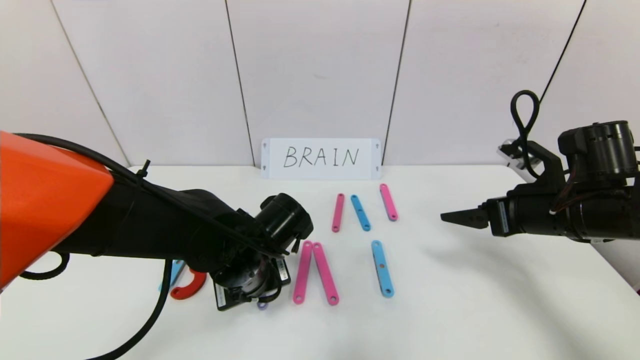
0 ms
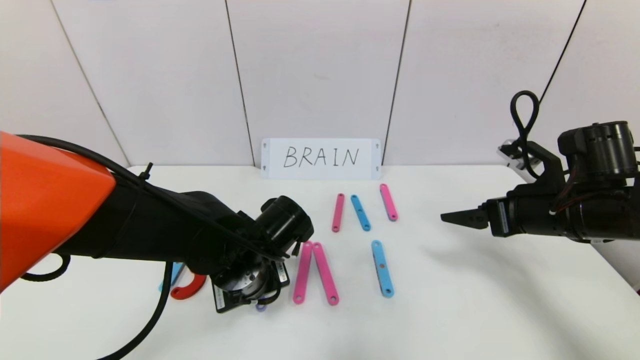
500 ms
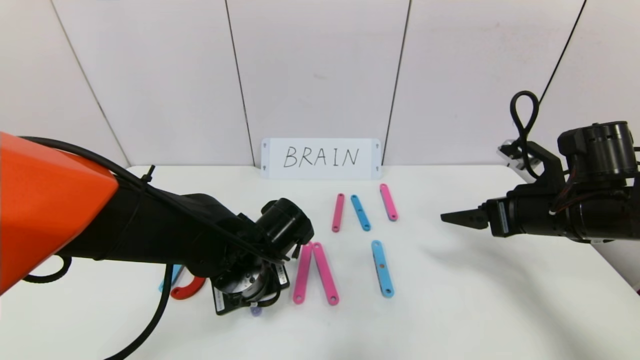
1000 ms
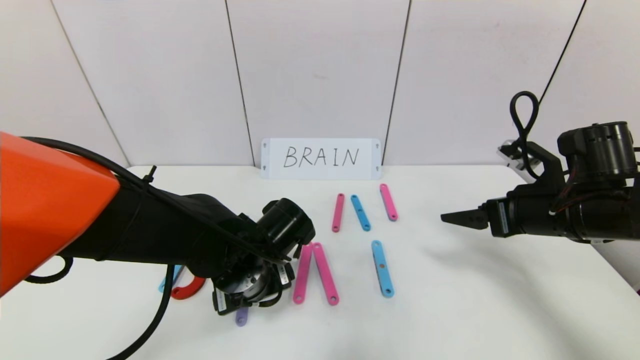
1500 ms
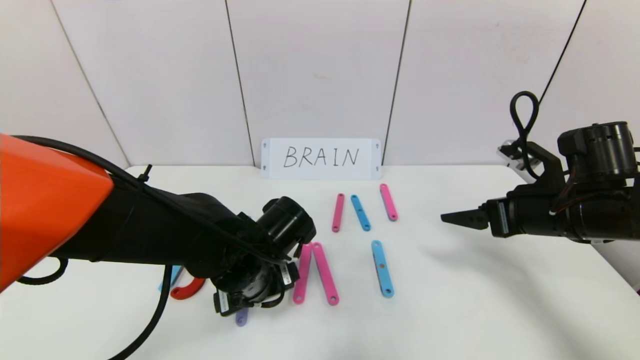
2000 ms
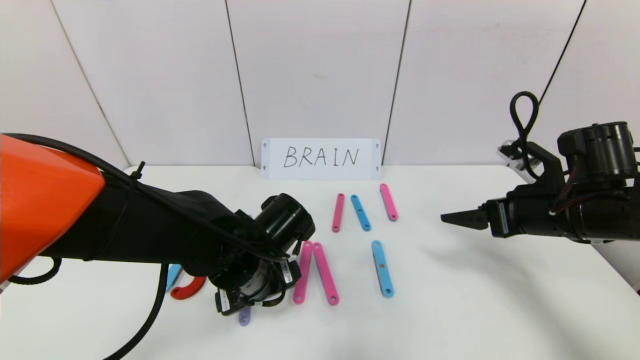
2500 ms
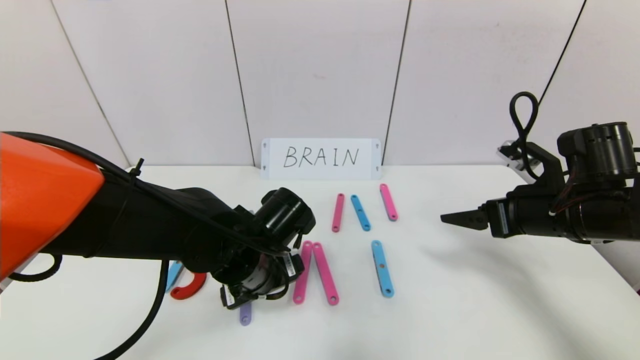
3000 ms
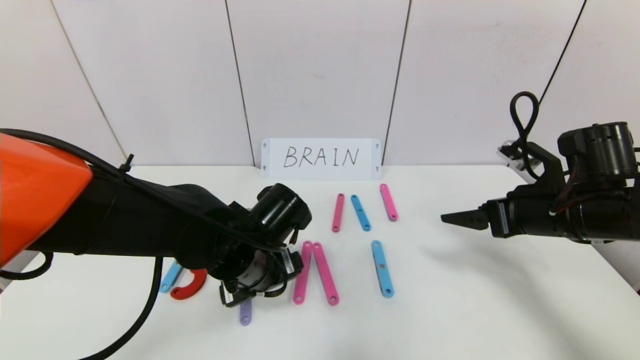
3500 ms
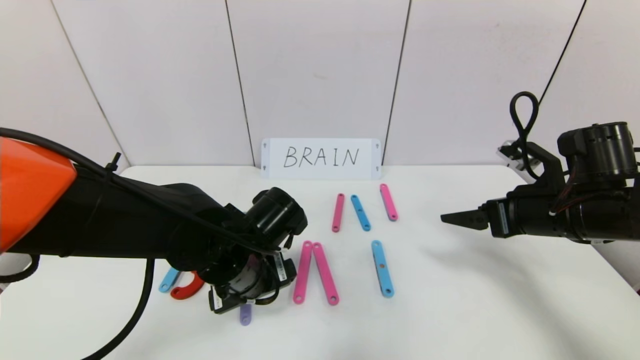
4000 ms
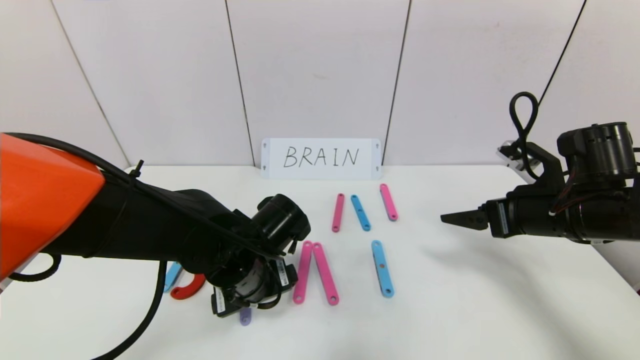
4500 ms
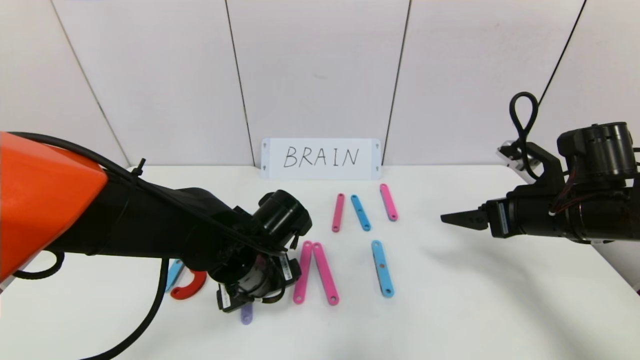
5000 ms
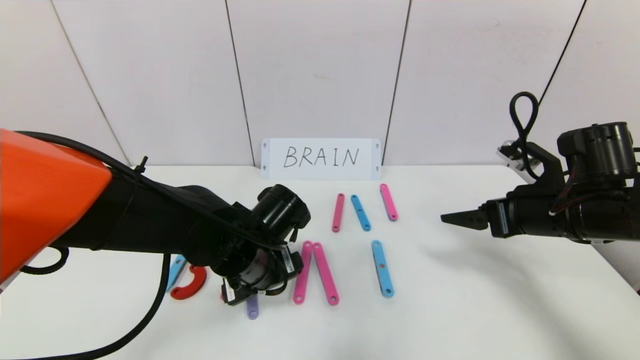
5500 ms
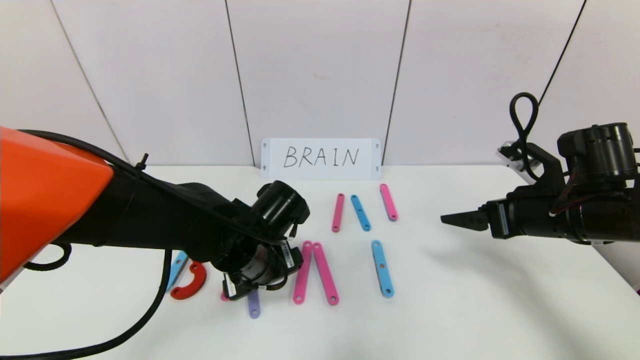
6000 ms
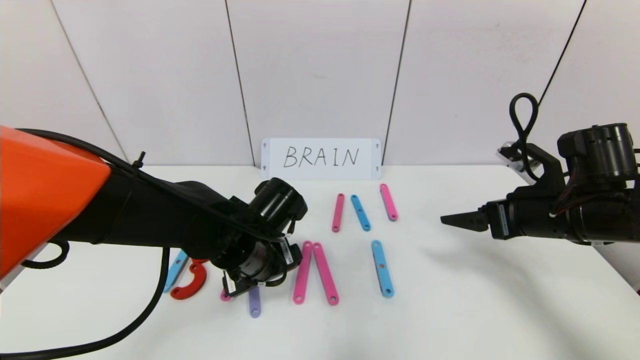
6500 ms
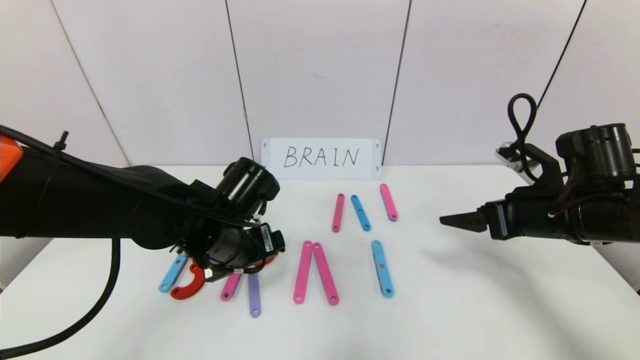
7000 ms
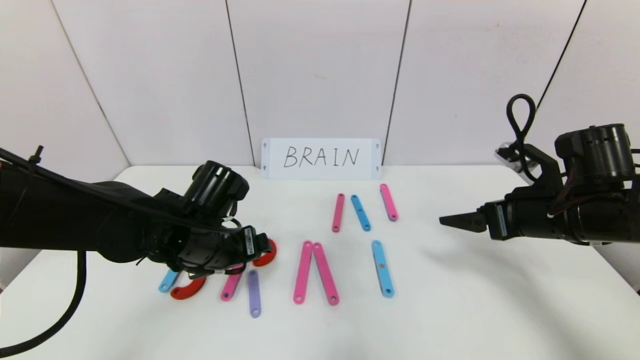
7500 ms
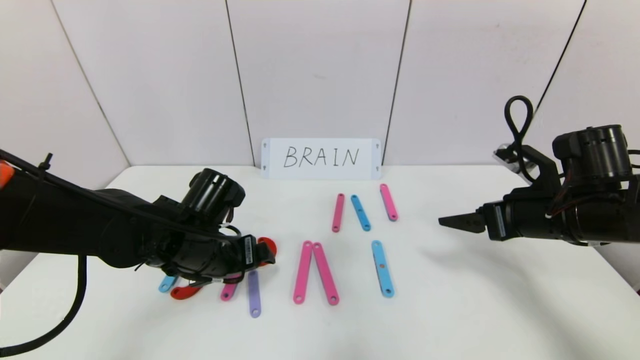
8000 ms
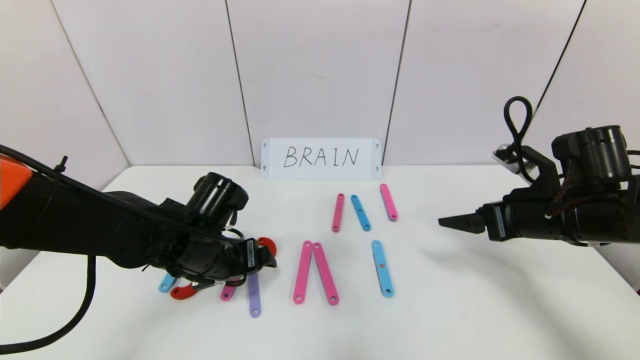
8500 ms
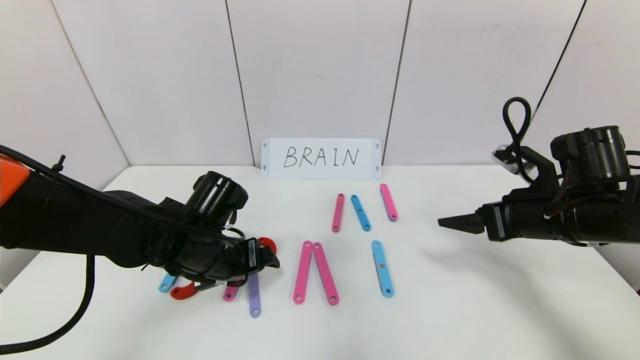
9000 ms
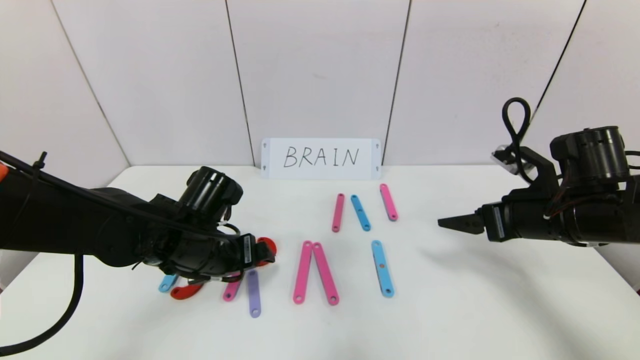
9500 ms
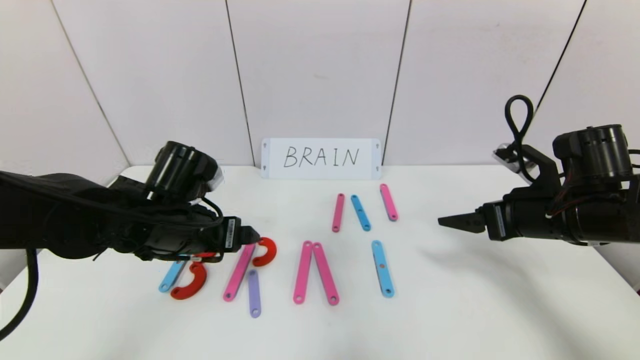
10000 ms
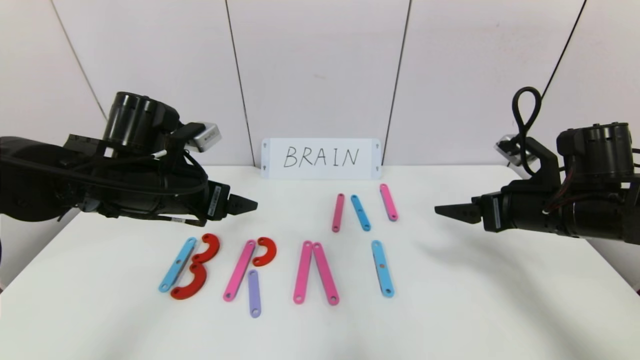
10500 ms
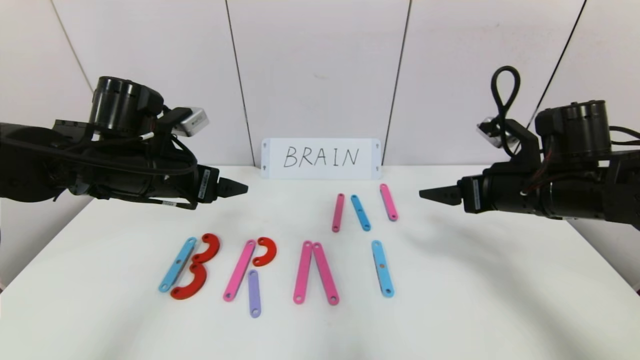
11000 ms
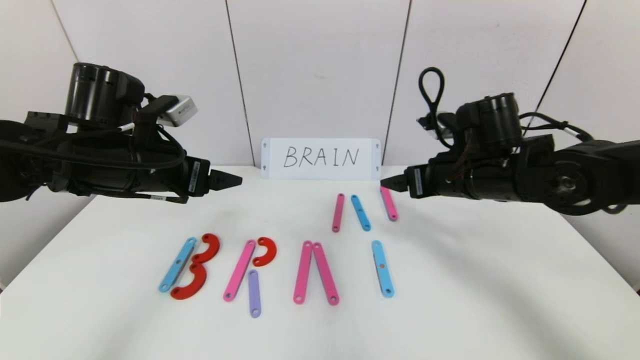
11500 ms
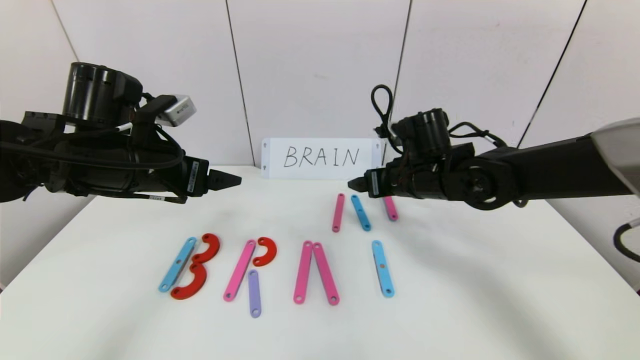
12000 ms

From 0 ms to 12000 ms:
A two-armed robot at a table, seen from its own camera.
Task of the whole recording: rearrange the word baai as brain.
Step, from 0 ms to 9500 ms: Place the character R between first character B and third character A.
From 0 ms to 2000 ms: The left gripper opens.
From 2000 ms to 6000 ms: The grippers stay close to where they were, moving slightly.
From 6000 ms to 8000 ms: The left gripper travels to the left by some 5 cm.
From 10000 ms to 12000 ms: The right gripper heads to the left and forward, covering approximately 20 cm. The left gripper shifts some 10 cm upward.

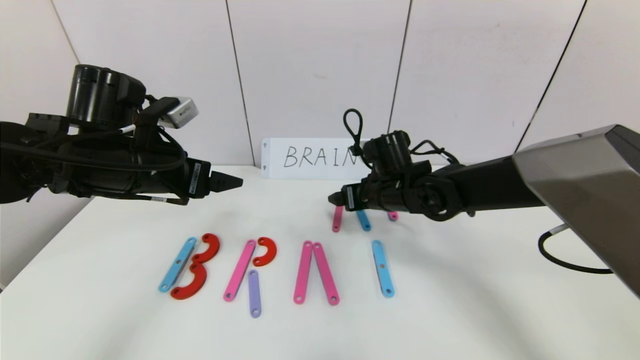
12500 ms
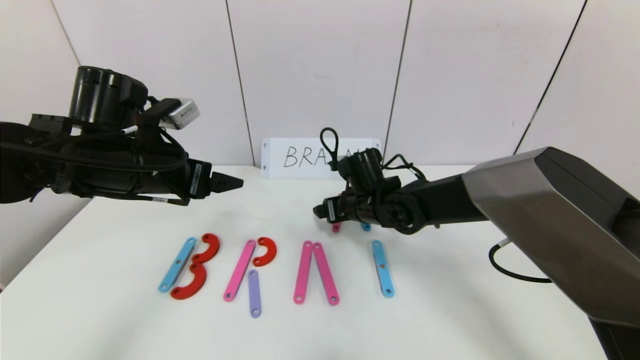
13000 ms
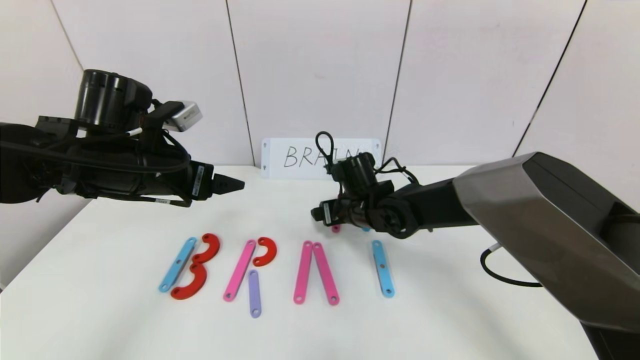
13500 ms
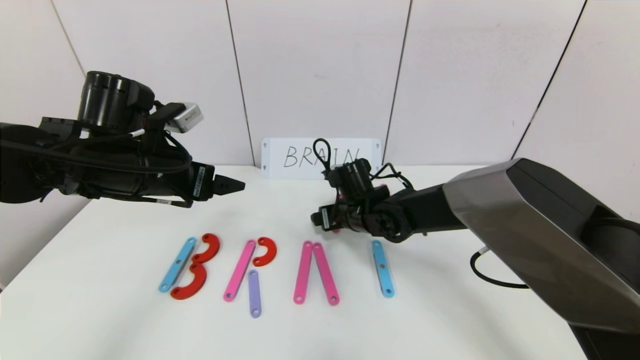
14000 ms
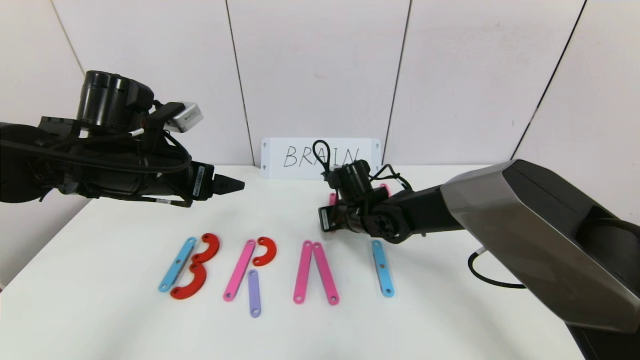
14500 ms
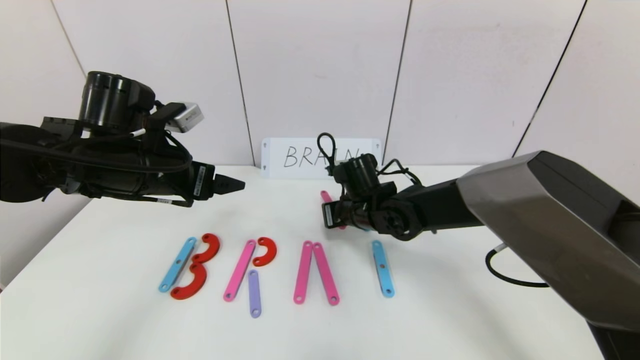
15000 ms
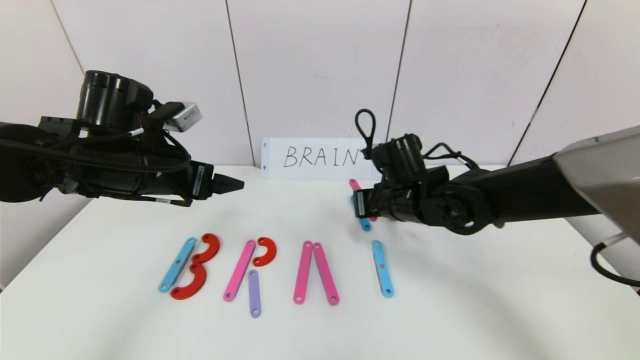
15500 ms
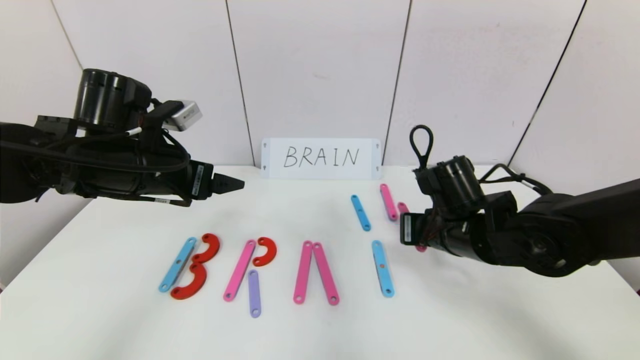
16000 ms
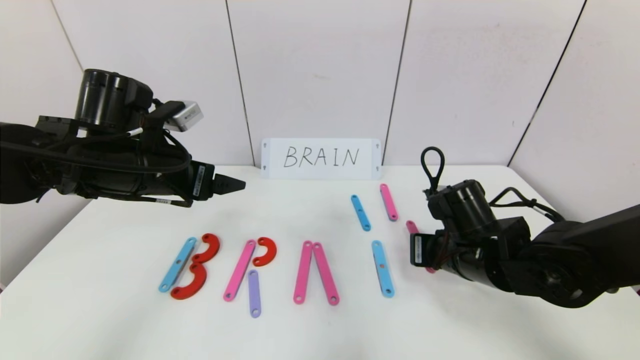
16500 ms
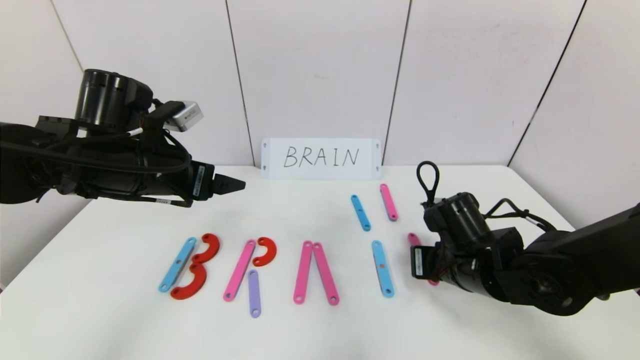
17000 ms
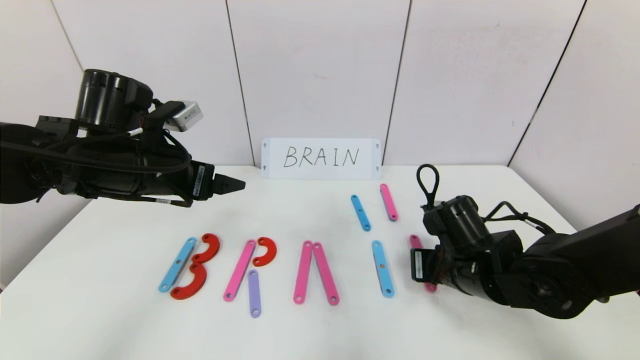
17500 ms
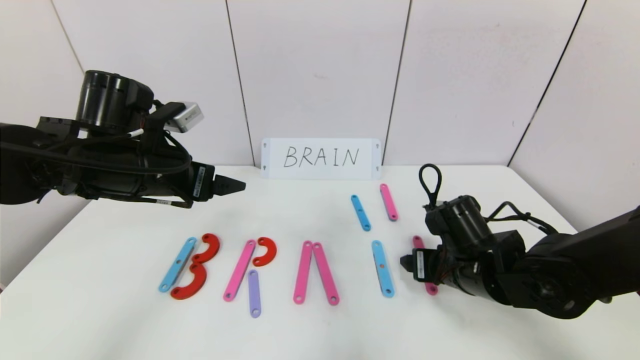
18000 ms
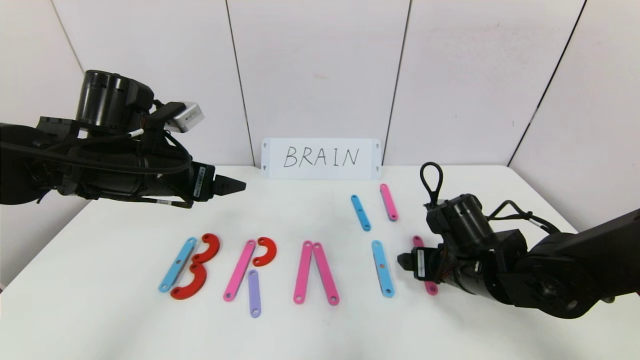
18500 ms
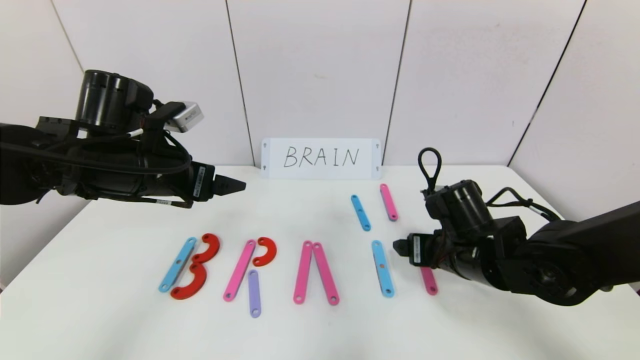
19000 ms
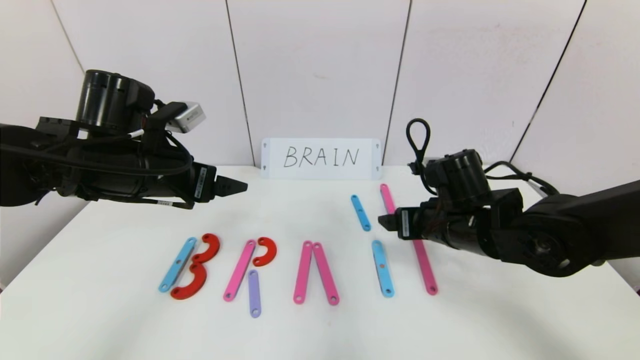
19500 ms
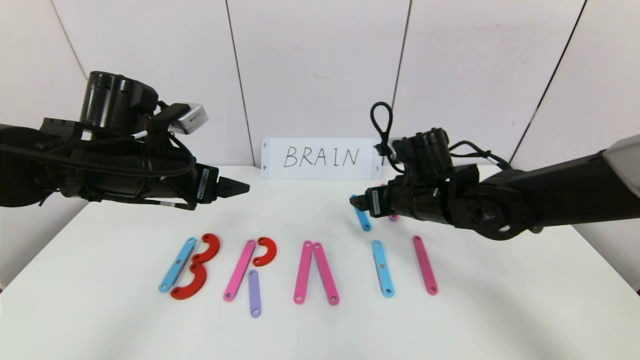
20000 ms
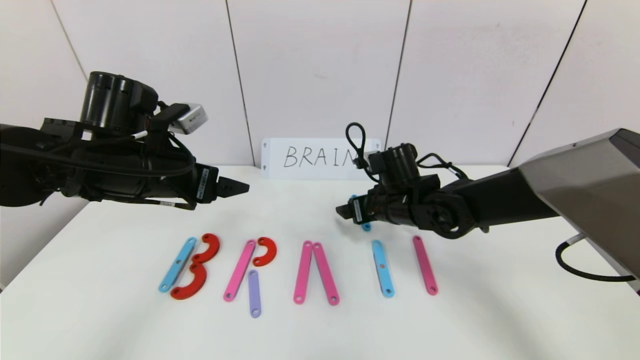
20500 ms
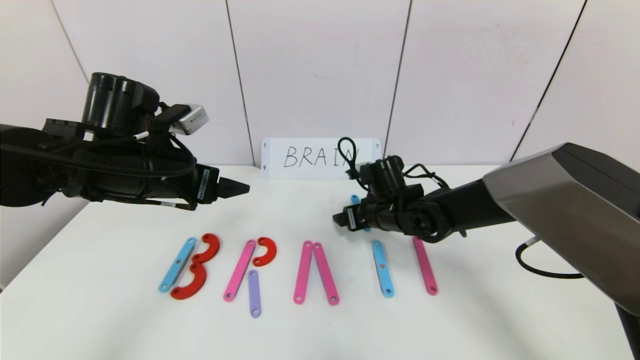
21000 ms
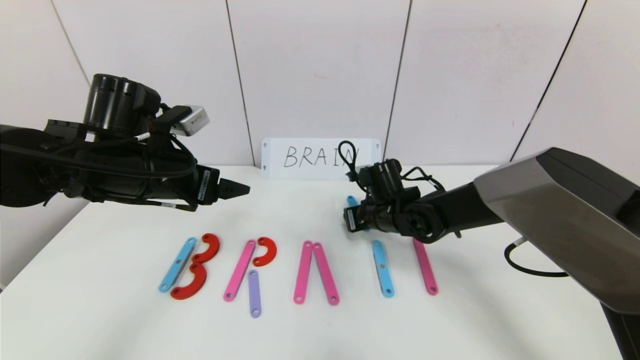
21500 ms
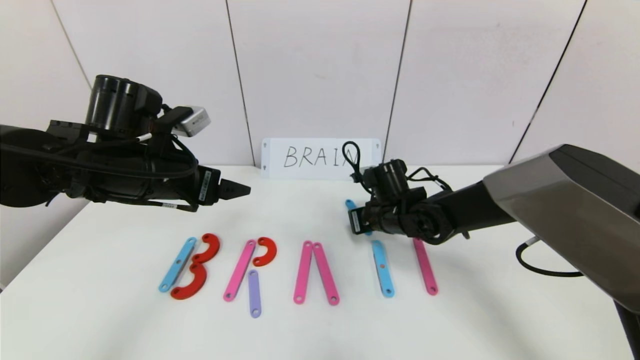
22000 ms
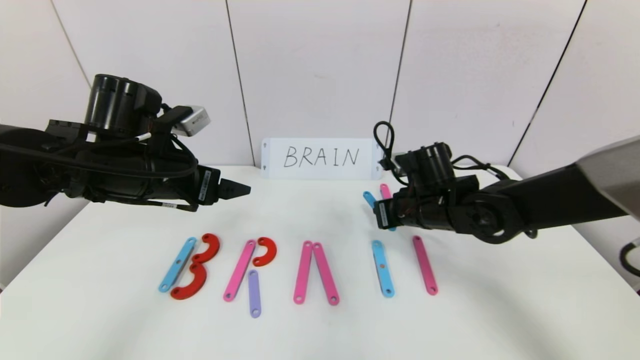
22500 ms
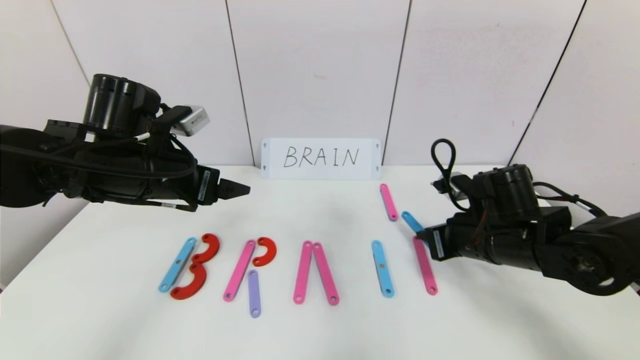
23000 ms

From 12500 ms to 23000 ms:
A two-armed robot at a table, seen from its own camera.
Task of the whole recording: rearrange the word baai as brain.
From 12500 ms to 14500 ms: The right gripper goes approximately 5 cm downward and to the left, and closes up.
From 14500 ms to 16500 ms: The right gripper is displaced to the right and backward by approximately 20 cm.
From 16500 ms to 19000 ms: The right gripper opens its fingers.
From 19000 ms to 21000 ms: The right gripper is displaced forward and to the left by about 15 cm.
From 21000 ms to 23000 ms: The right gripper goes about 15 cm to the right and backward, and closes.
